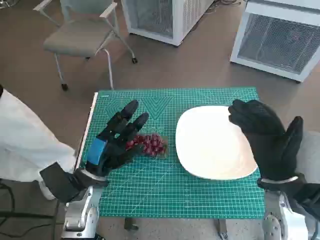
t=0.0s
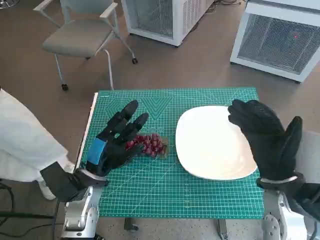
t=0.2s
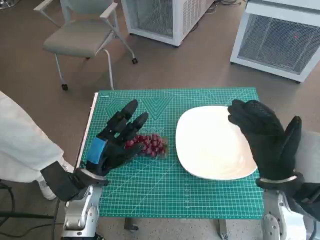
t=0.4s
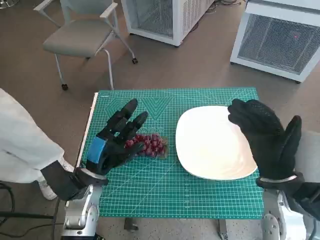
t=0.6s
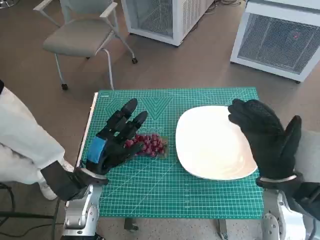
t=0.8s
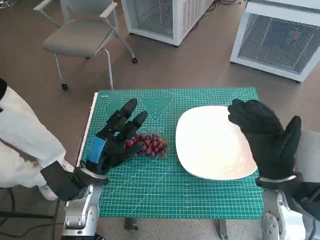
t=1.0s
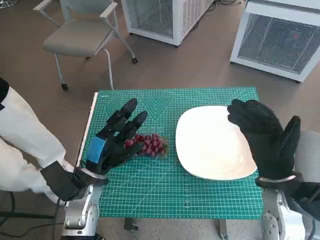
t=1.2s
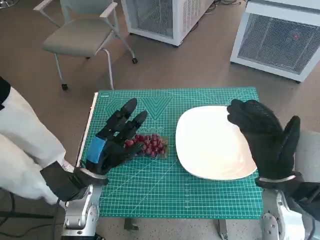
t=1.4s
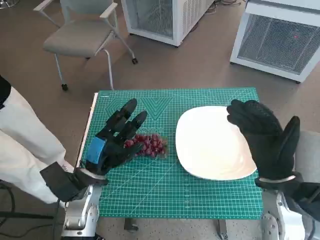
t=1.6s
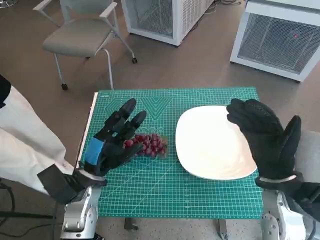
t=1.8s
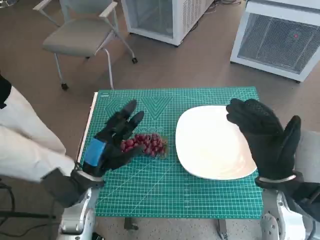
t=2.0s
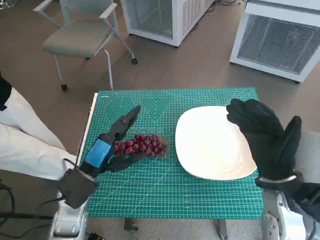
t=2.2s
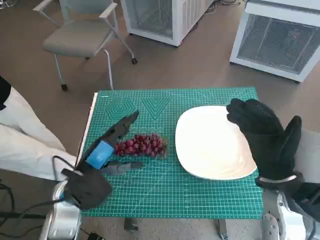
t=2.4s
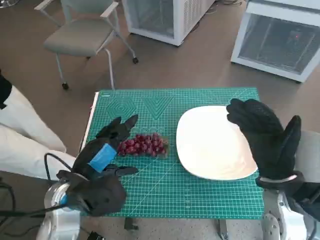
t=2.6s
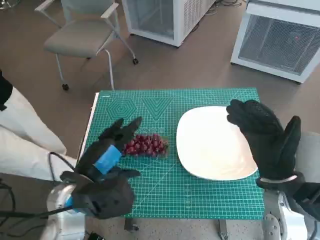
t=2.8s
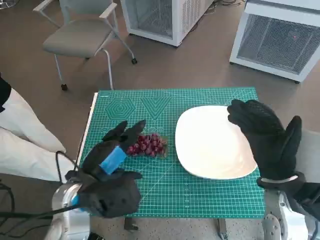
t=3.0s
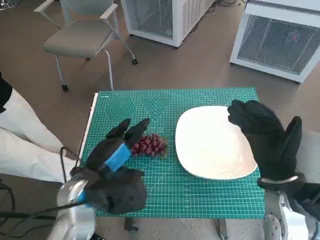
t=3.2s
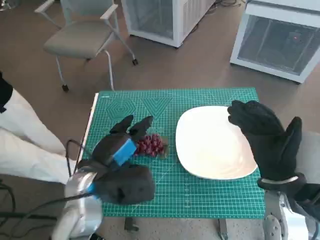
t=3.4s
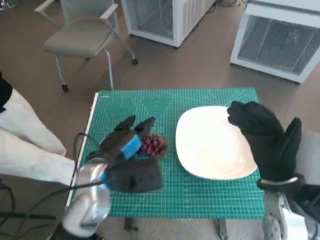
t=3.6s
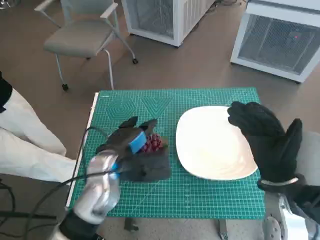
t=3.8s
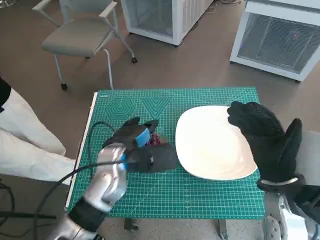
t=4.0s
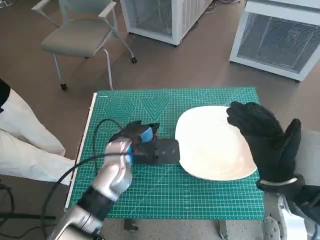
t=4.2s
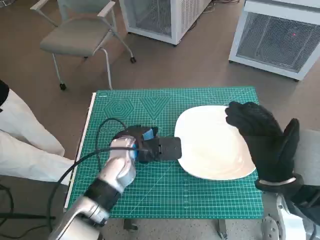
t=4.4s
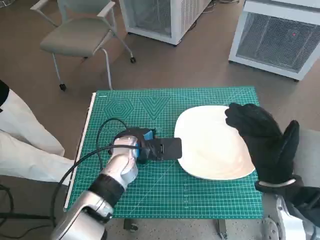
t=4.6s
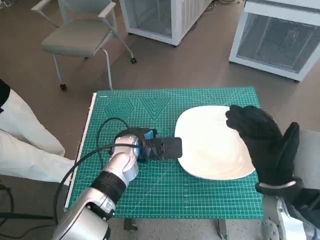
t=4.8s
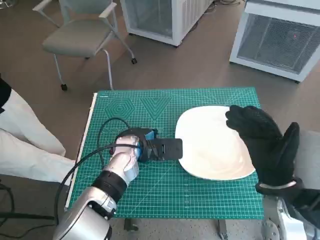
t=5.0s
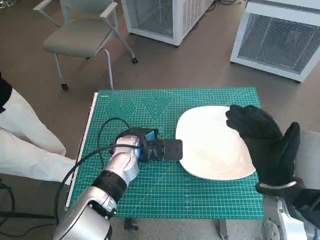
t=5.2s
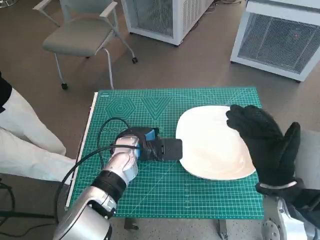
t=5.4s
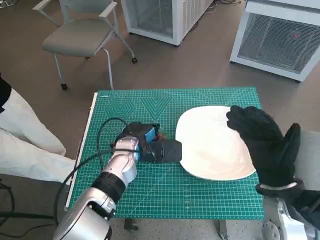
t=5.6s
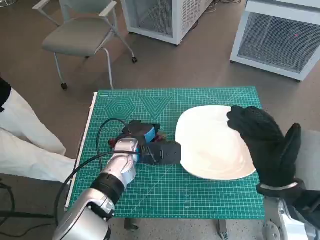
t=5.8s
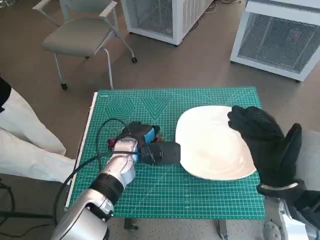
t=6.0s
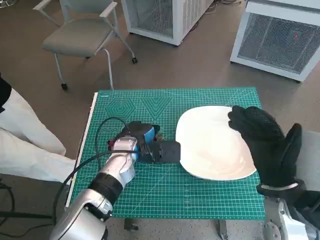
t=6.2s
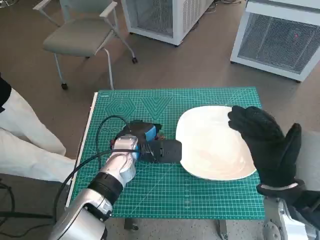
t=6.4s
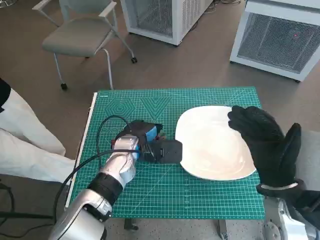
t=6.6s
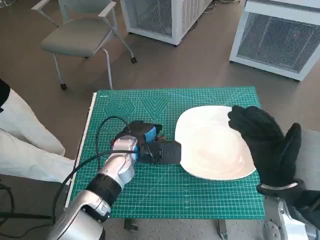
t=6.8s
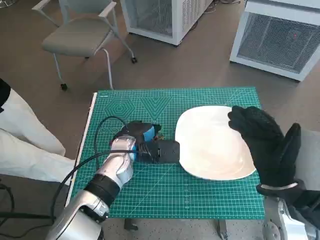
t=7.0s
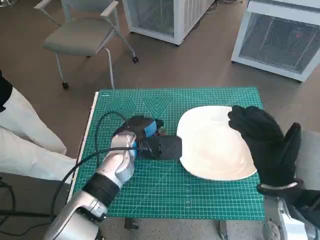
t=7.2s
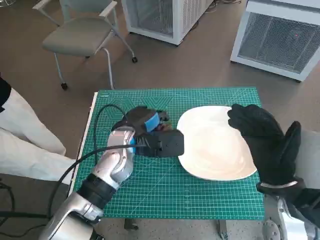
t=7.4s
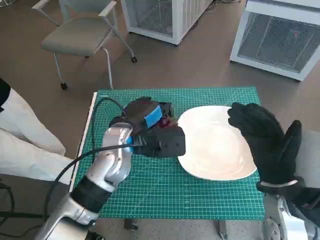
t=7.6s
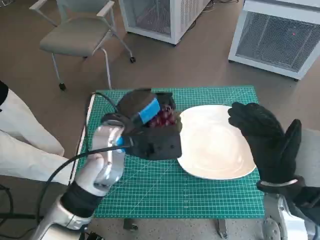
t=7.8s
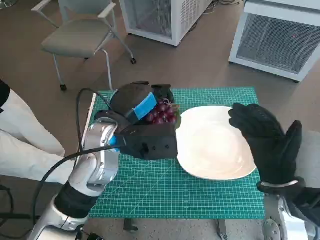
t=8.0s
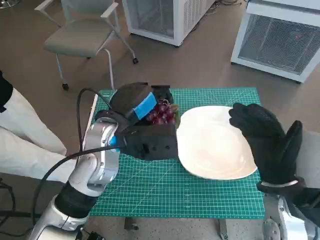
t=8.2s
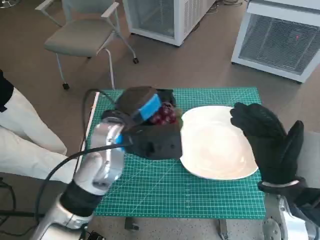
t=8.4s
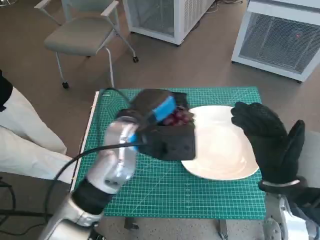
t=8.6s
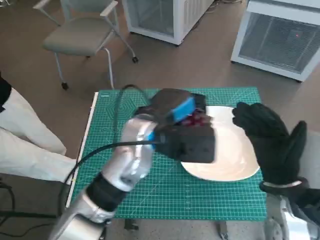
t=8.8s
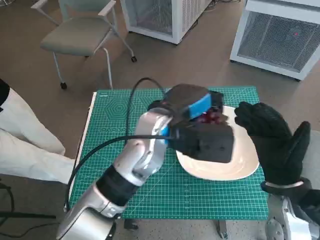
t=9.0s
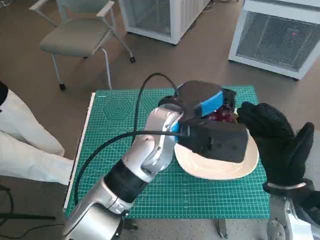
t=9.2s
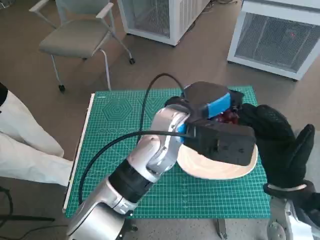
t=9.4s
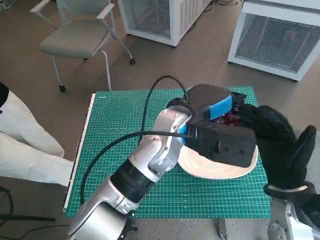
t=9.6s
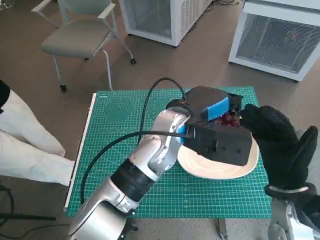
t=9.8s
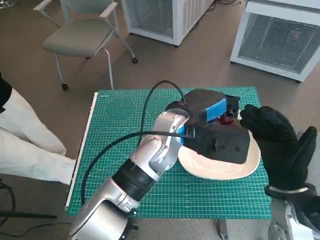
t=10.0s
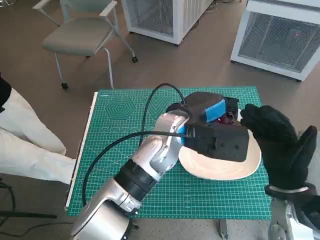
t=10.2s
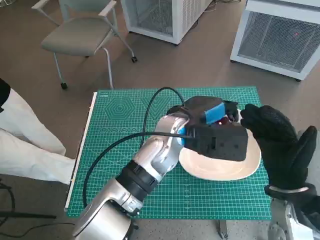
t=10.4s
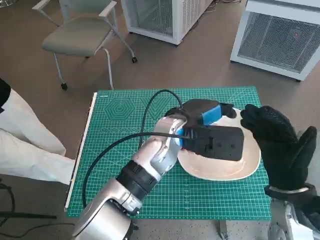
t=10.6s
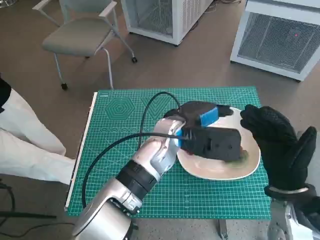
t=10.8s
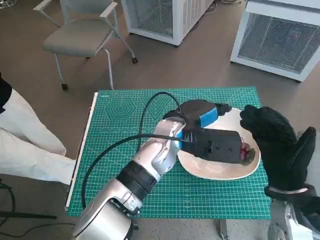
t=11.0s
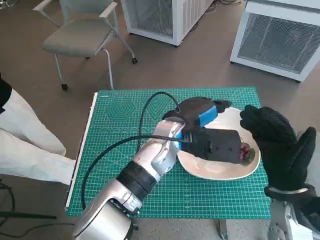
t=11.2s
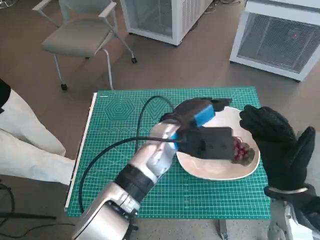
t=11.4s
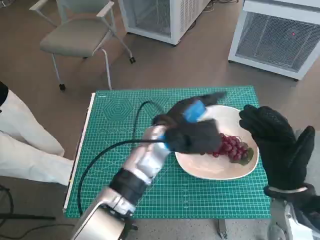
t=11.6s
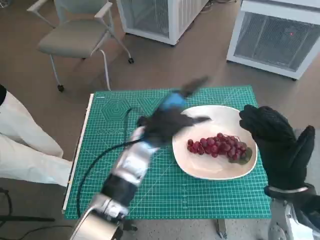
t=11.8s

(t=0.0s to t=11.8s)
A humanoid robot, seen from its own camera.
Task of the whole recording: Pick up the grapes and put them on the plate.
Step, t=0.0s - t=6.0s: Grasp the grapes with left hand.
Step, t=6.2s - t=10.6s: Place the grapes in the plate with left hand.
t=1.4s - t=3.0s: The left hand shifts approximately 5 cm upward.
t=3.0s - t=4.4s: The left hand shifts some 15 cm forward and to the right.
t=4.4s - t=7.4s: The hands stay close to where they were, moving slightly.
t=7.4s - t=8.8s: The left hand shifts about 5 cm upward.
t=8.8s - t=10.4s: The left hand travels to the right by roughly 5 cm.
t=10.4s - t=11.8s: The left hand heads to the left, covering some 5 cm.

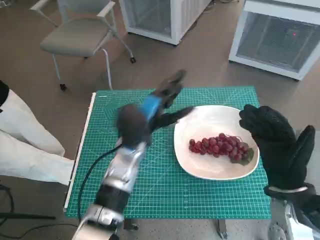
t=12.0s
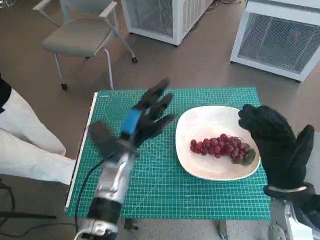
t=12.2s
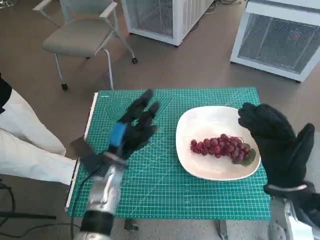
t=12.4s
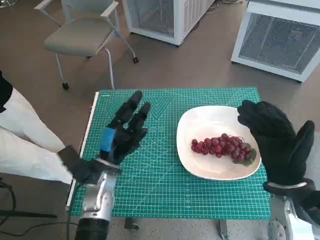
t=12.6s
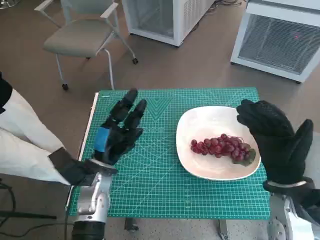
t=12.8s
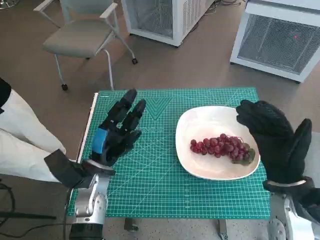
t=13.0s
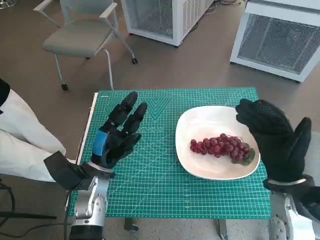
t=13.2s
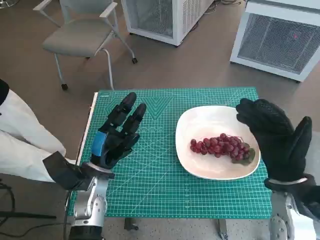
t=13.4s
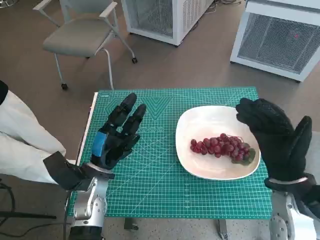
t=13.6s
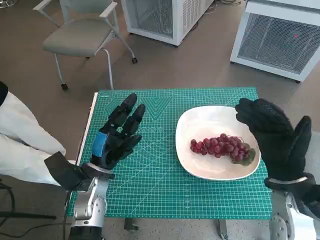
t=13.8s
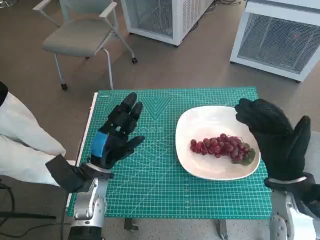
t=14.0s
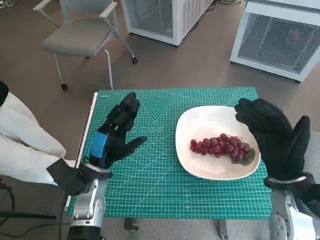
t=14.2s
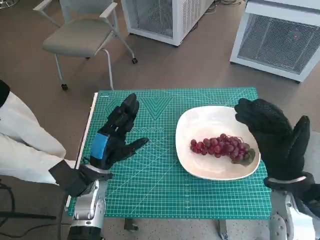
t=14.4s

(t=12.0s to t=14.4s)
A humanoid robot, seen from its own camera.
Task of the whole recording: Pick up the grapes and put them on the plate.
t=12.0s - t=13.2s: The left hand shifts some 10 cm to the left, backward and downward.
t=13.2s - t=14.4s: There are only small adjustments of the hands.

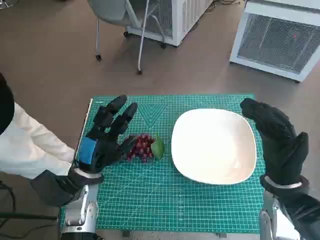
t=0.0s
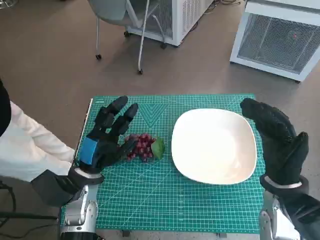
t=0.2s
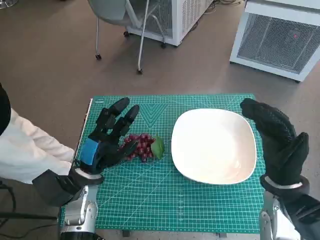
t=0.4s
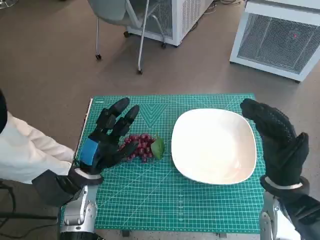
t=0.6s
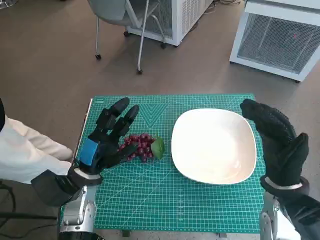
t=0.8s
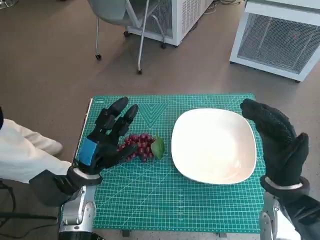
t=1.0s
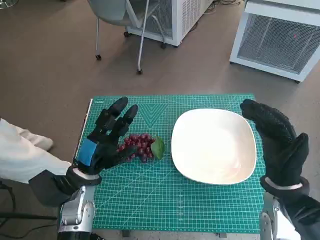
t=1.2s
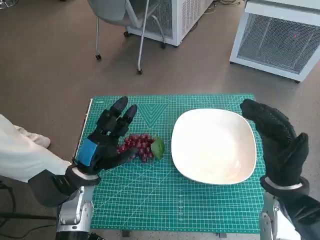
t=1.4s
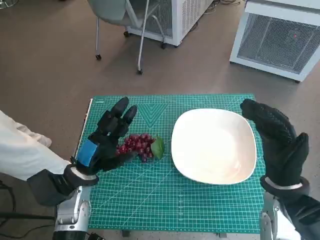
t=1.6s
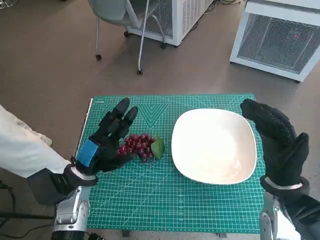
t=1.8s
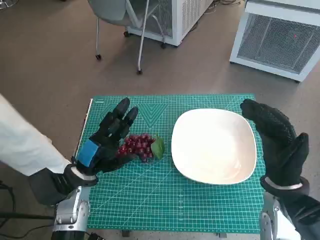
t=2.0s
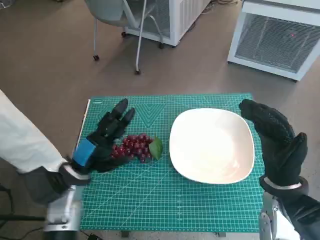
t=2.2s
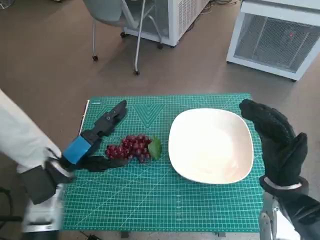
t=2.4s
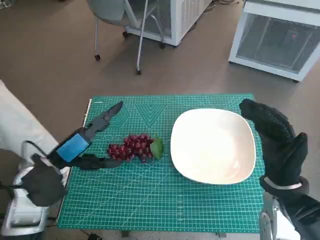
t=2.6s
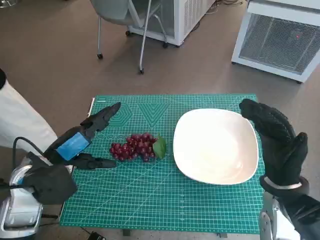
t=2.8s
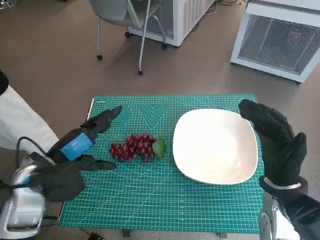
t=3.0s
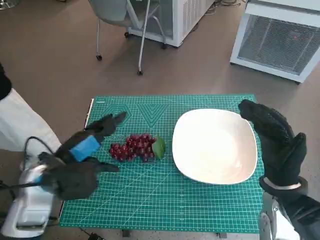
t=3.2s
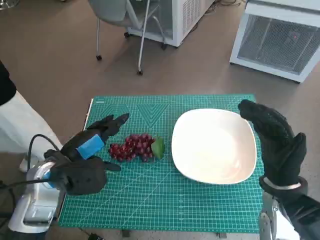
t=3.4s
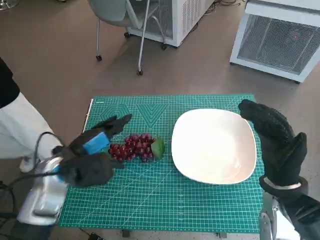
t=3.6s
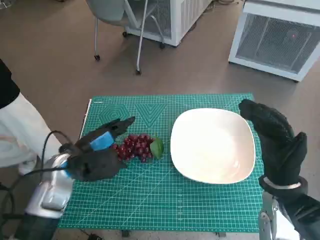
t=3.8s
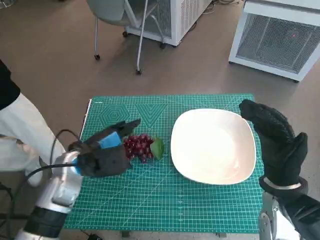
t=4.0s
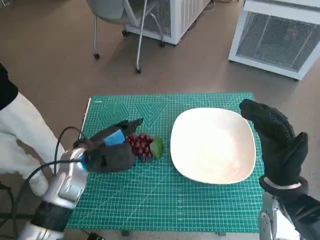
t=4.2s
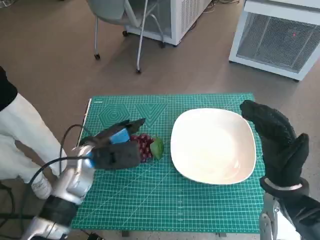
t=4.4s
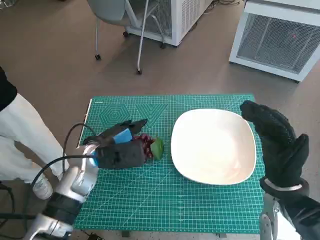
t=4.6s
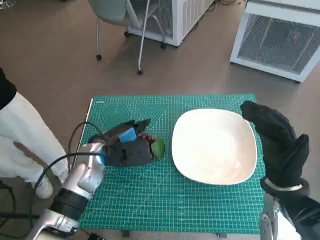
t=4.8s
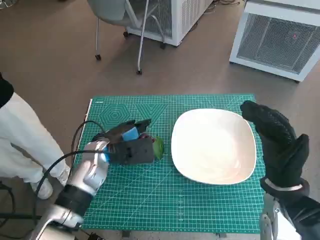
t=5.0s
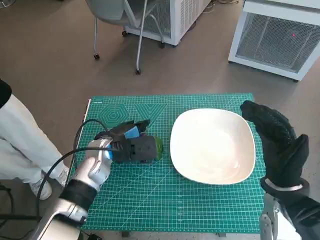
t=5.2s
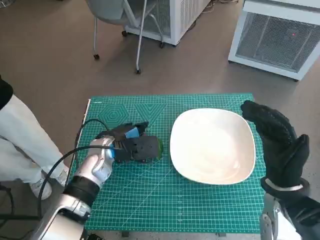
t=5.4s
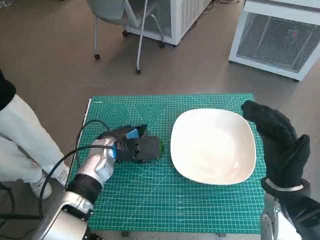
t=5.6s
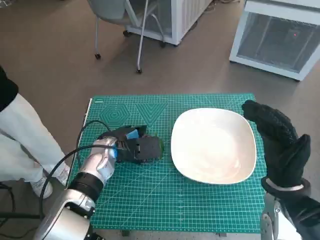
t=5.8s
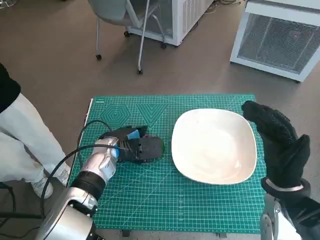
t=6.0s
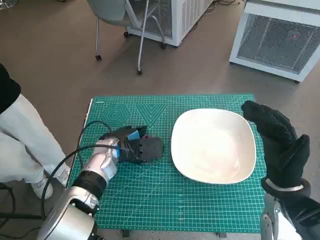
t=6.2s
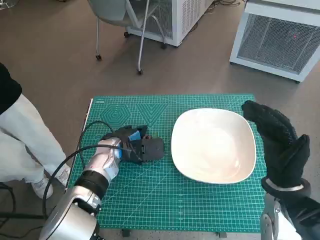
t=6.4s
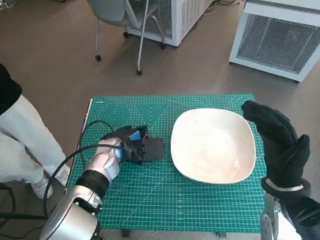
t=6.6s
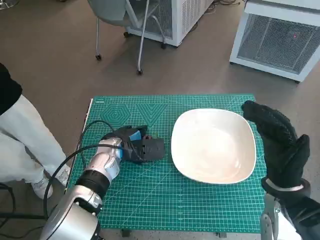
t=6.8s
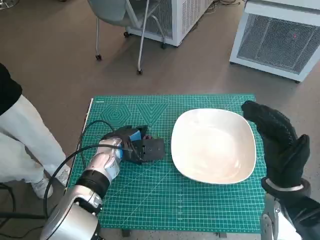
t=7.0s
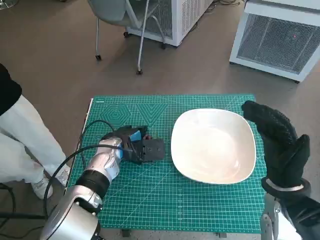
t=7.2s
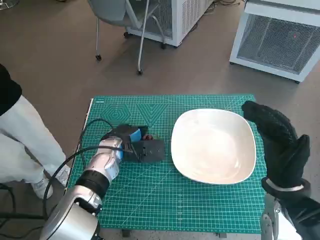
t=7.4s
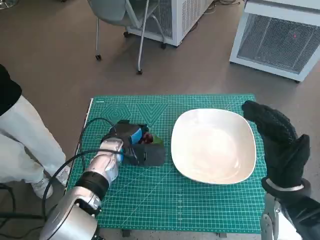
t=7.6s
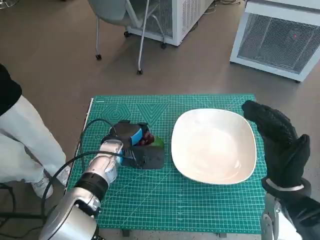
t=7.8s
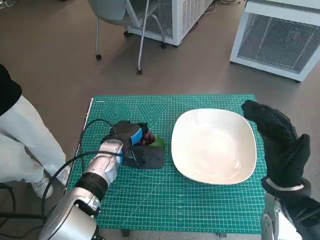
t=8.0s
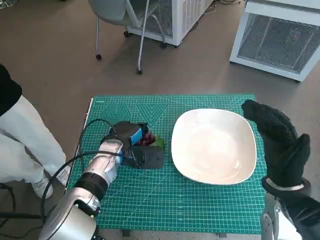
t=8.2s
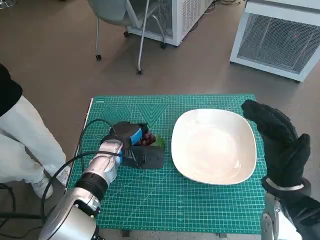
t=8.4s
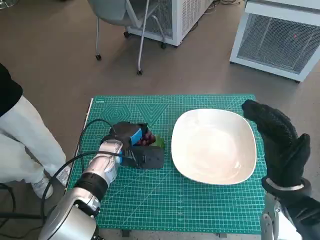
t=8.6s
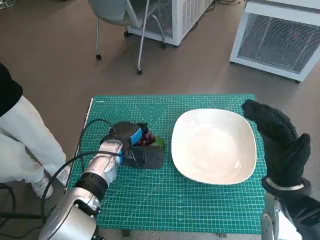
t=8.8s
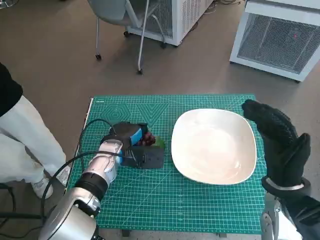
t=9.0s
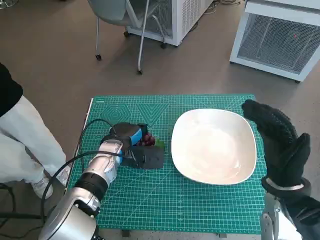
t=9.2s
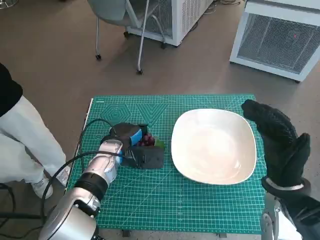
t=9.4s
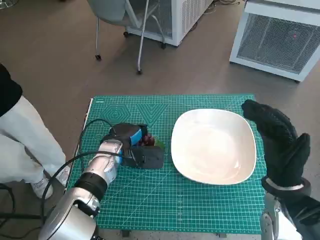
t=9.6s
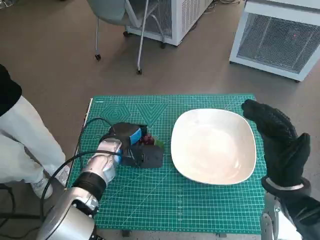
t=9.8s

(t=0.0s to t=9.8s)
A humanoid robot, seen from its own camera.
Task of the whole recording: Pick up the grapes and put them on the plate.
Step, t=0.0s - t=7.4s: Grasp the grapes with left hand.
t=1.4s - t=2.8s: The left hand travels upward by some 10 cm.
t=2.8s - t=4.2s: The left hand goes roughly 5 cm forward.
t=4.2s - t=5.6s: The left hand shifts by approximately 5 cm.
t=5.6s - t=8.4s: The hands stay close to where they were, moving slightly.
t=8.4s - t=9.8s: Both hands stay about where they are.
